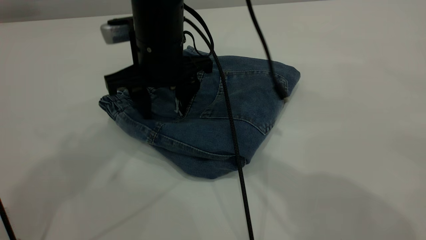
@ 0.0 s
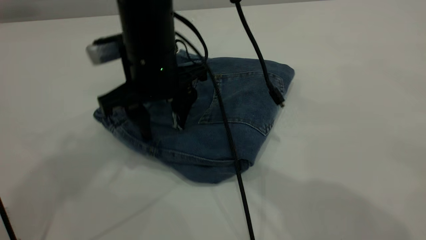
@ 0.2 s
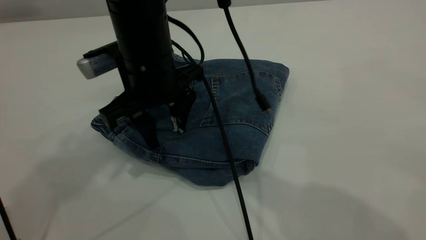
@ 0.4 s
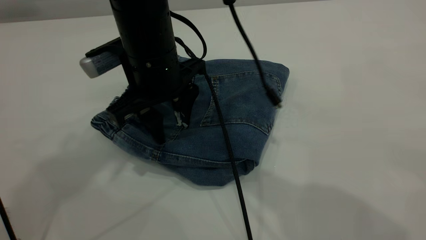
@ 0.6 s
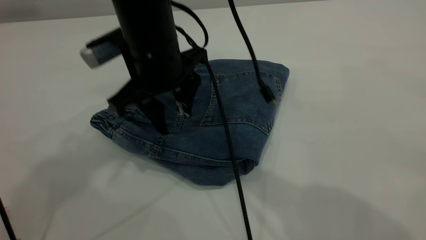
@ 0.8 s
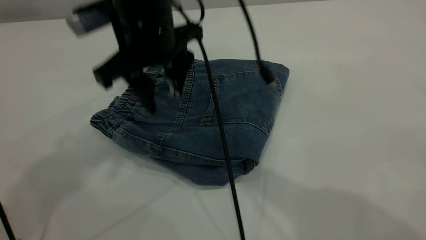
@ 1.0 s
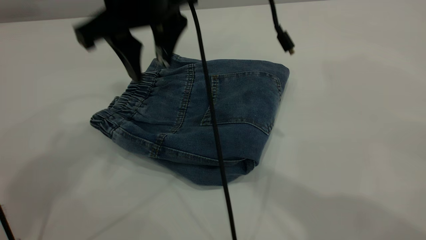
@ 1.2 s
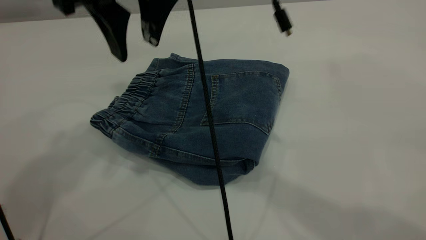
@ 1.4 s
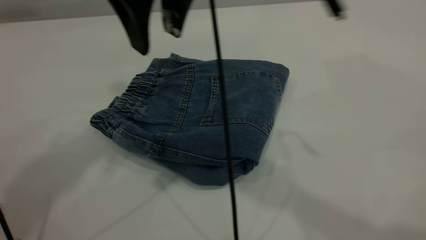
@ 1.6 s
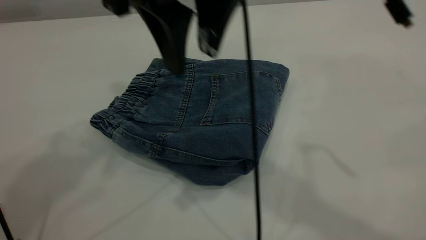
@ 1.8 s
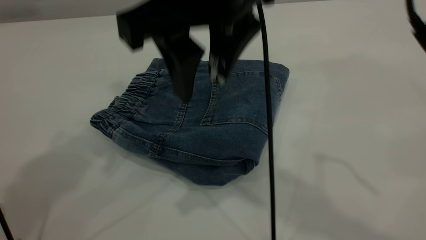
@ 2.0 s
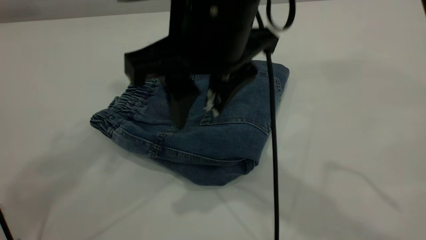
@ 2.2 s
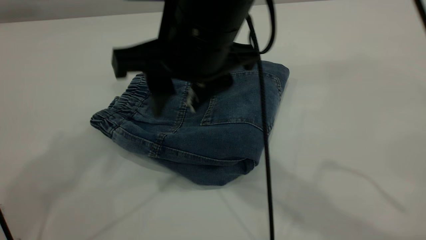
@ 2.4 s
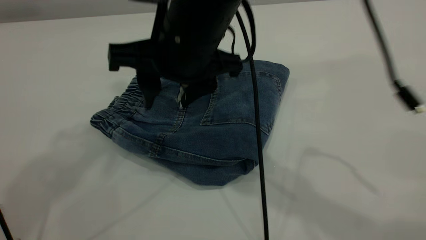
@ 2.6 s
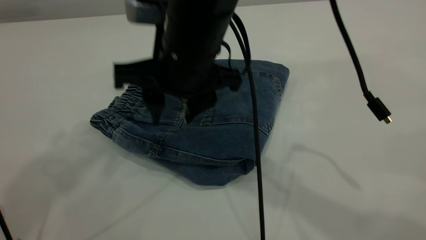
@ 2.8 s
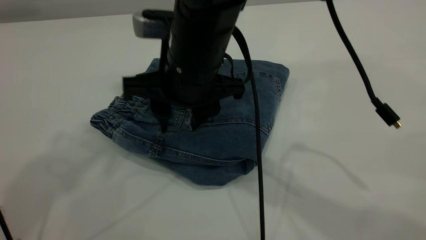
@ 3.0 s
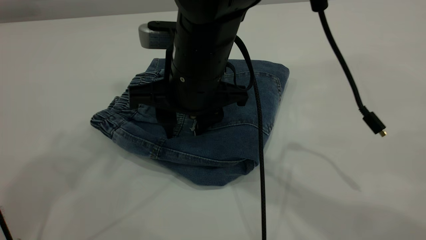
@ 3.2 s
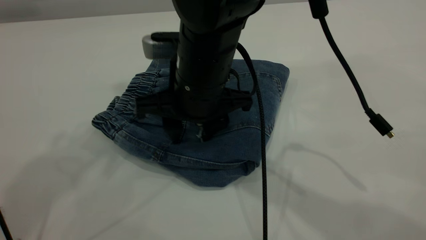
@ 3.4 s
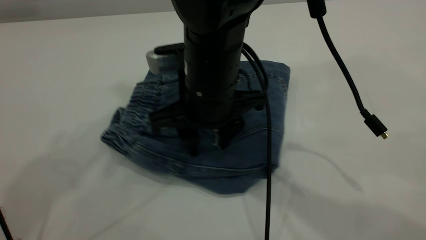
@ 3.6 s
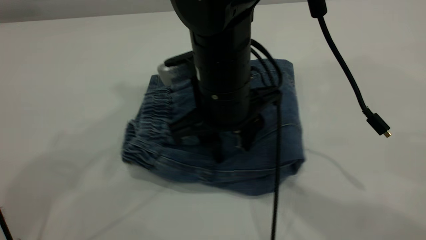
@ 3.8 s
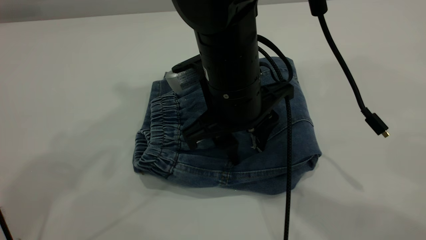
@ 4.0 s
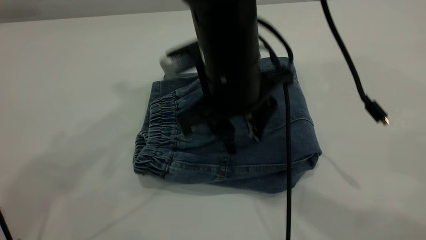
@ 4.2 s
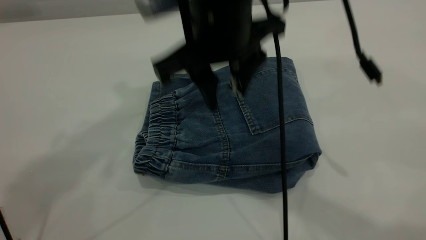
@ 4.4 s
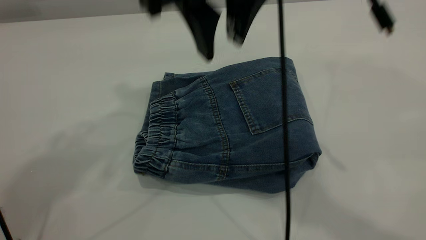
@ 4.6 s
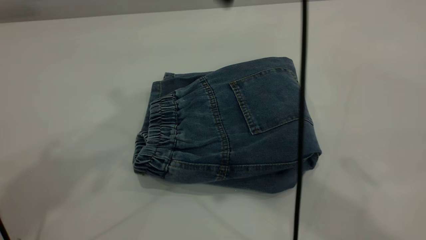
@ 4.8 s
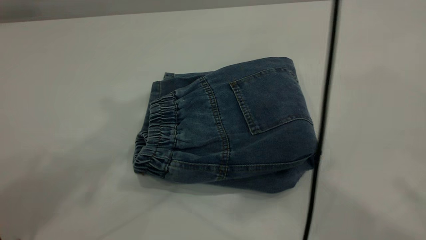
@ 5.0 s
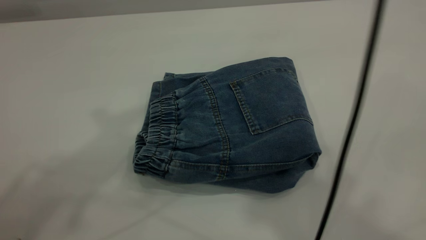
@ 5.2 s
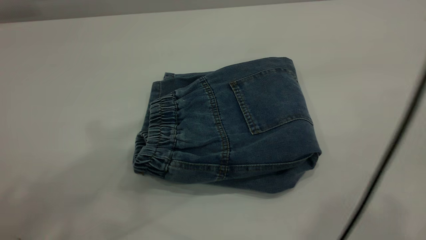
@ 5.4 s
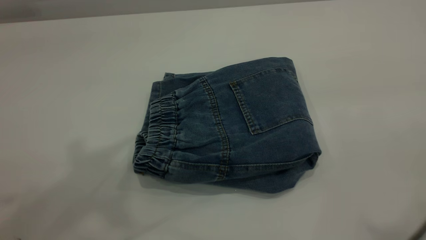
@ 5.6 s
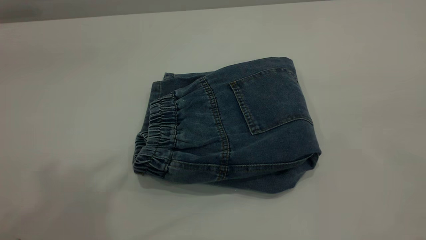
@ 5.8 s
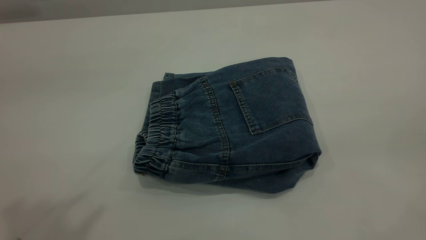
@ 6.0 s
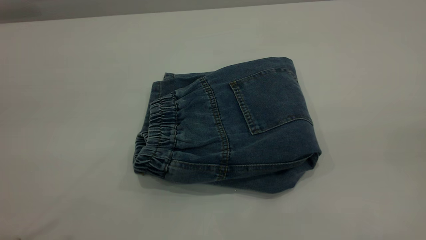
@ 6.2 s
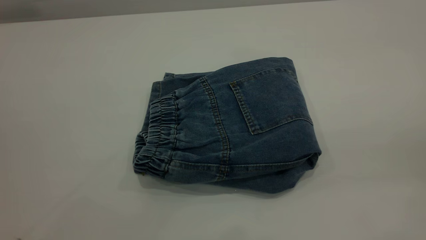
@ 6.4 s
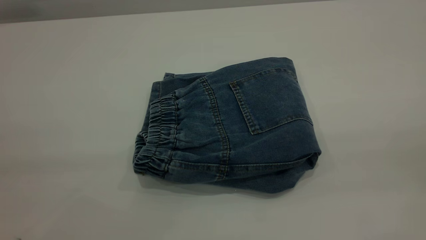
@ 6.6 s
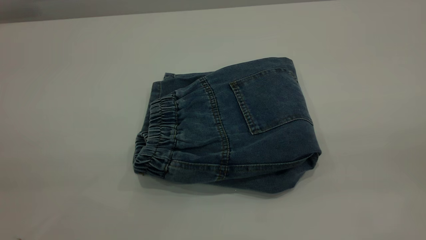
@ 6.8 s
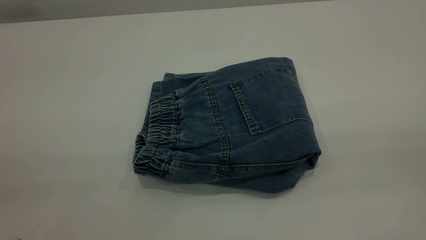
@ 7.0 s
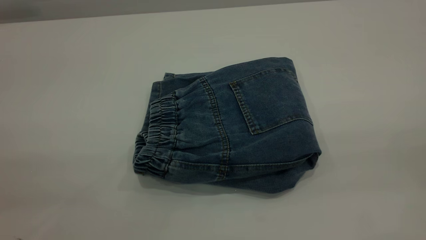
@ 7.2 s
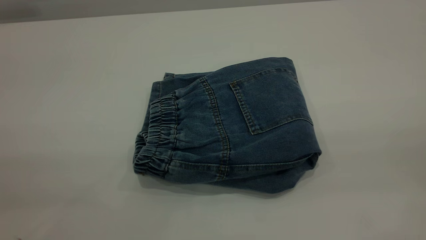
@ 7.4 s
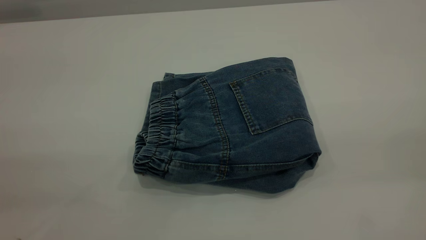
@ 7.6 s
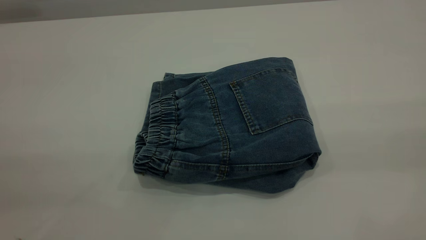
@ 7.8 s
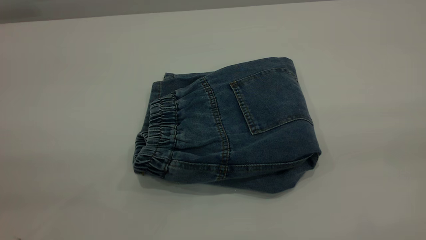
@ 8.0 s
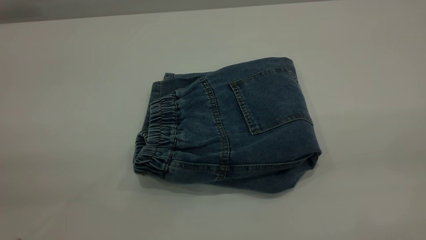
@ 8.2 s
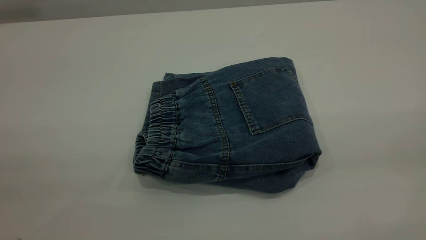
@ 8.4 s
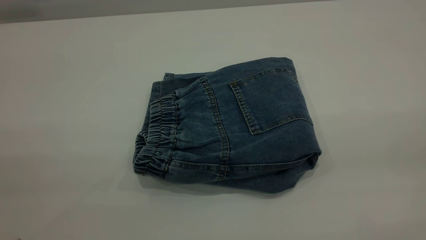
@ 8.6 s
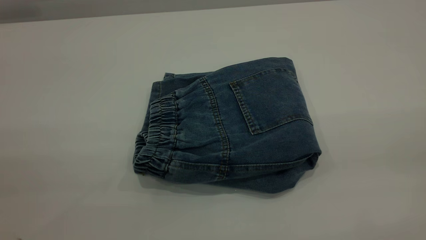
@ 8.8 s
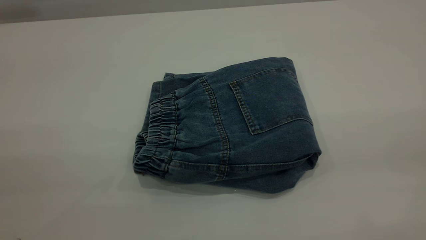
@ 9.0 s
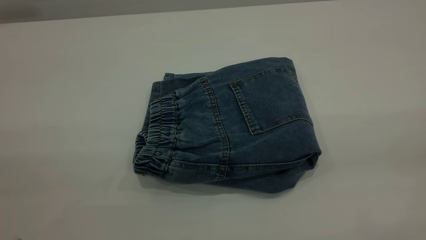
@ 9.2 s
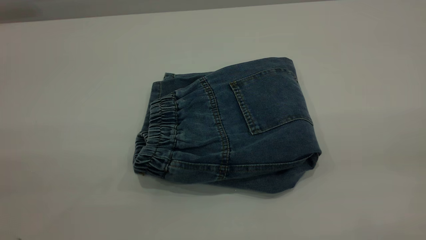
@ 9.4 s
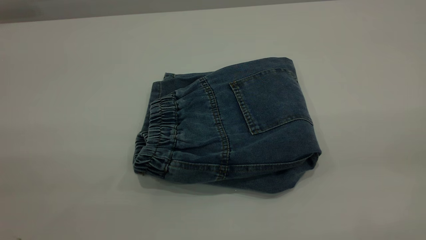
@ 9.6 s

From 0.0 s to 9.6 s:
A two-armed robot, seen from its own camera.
From 0.0 s to 1.6 s: The right gripper heads upward and backward, covering approximately 15 cm.
From 1.6 s to 3.2 s: The right gripper is displaced downward by approximately 15 cm.
From 3.2 s to 4.8 s: The right gripper moves upward, roughly 25 cm.
From 4.8 s to 6.4 s: The right gripper travels backward and to the right by some 35 cm.

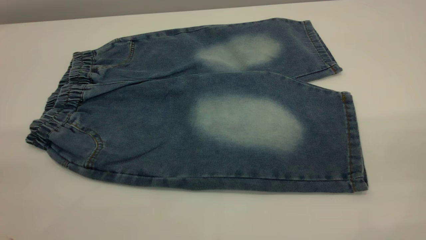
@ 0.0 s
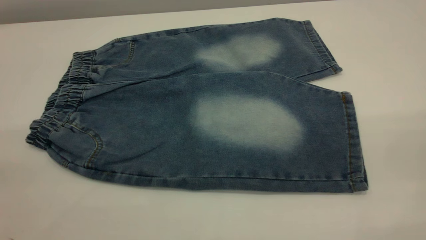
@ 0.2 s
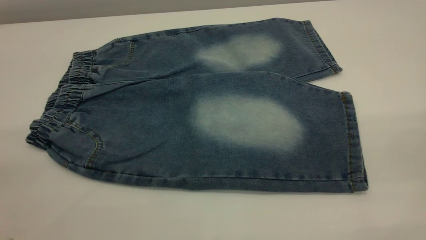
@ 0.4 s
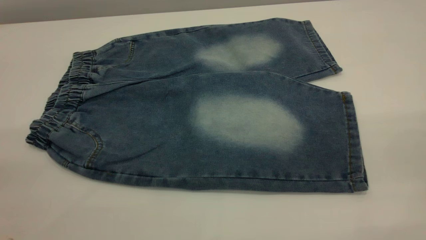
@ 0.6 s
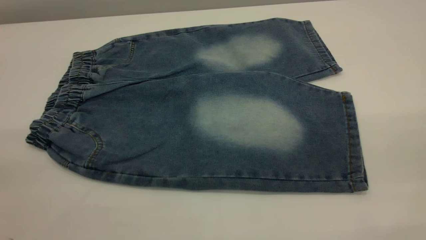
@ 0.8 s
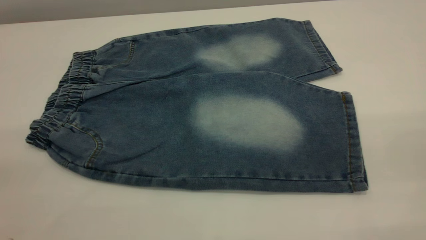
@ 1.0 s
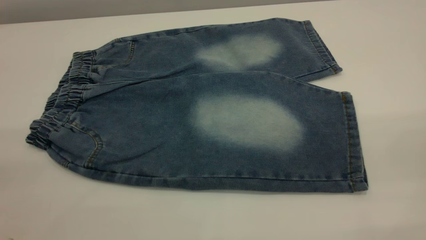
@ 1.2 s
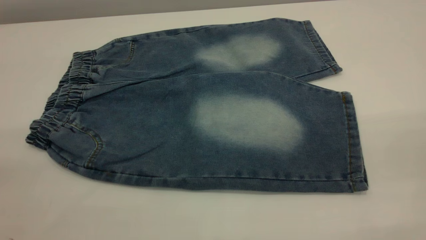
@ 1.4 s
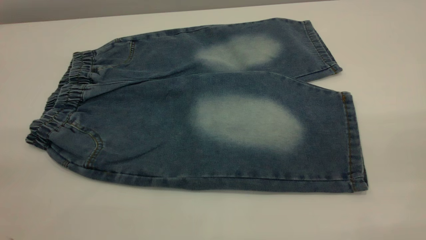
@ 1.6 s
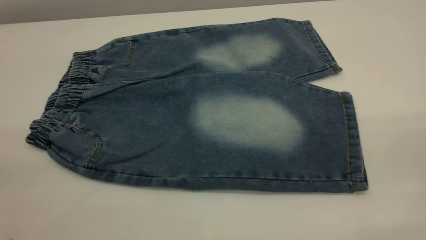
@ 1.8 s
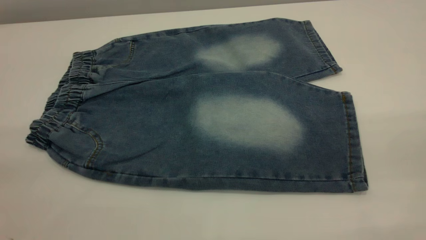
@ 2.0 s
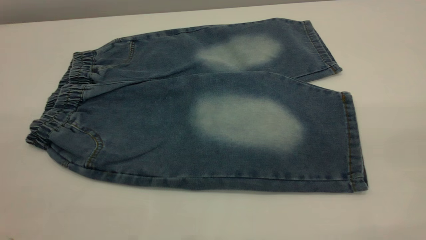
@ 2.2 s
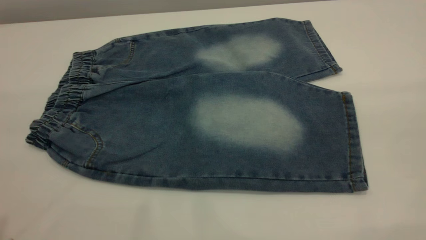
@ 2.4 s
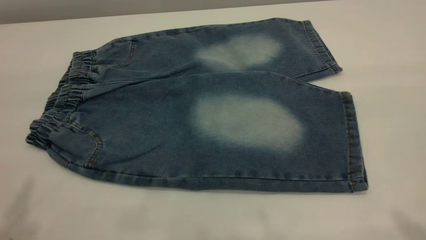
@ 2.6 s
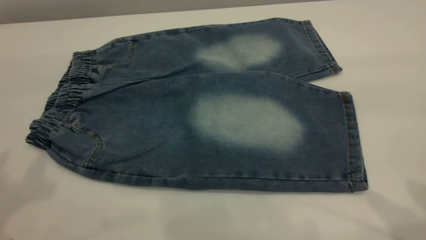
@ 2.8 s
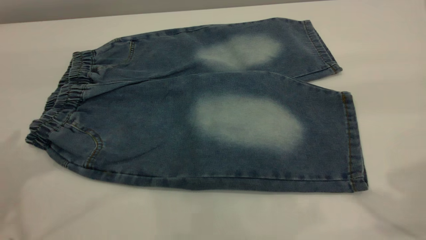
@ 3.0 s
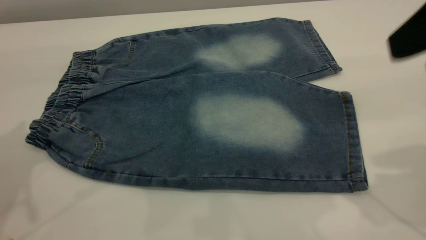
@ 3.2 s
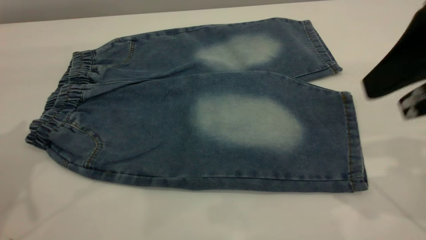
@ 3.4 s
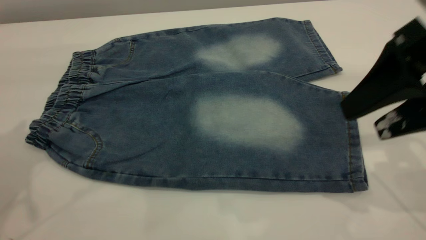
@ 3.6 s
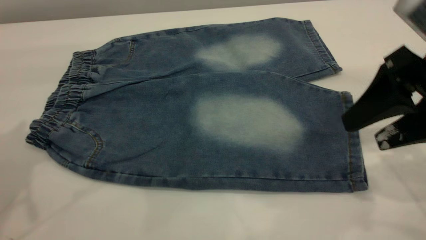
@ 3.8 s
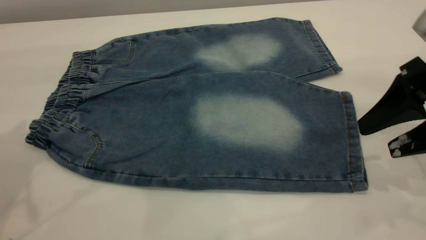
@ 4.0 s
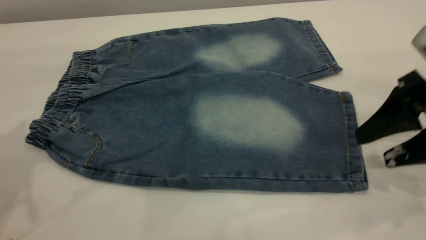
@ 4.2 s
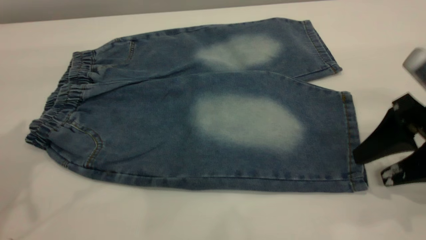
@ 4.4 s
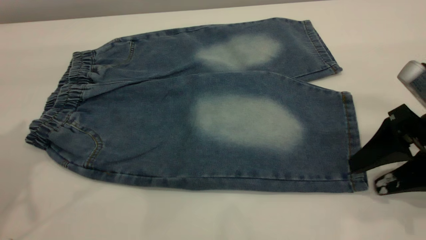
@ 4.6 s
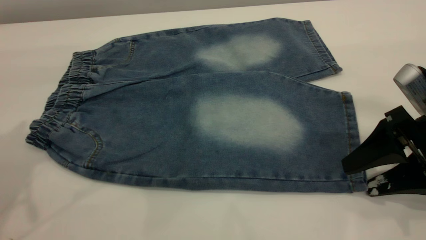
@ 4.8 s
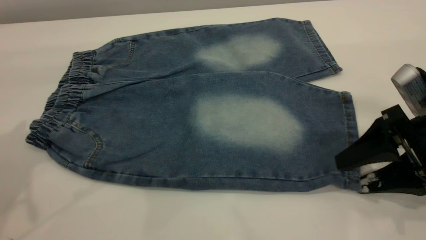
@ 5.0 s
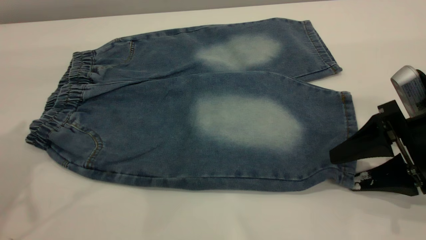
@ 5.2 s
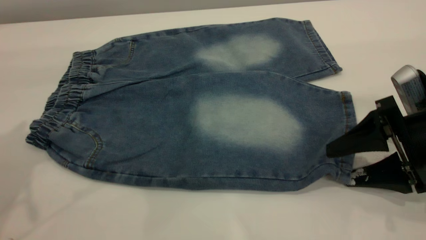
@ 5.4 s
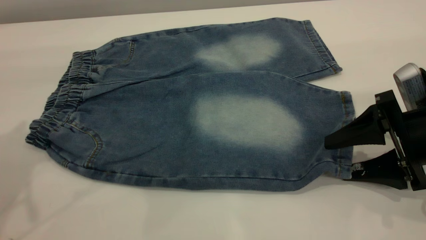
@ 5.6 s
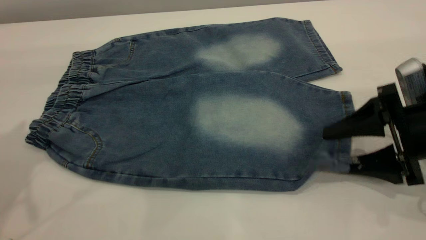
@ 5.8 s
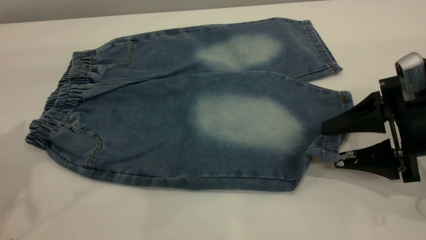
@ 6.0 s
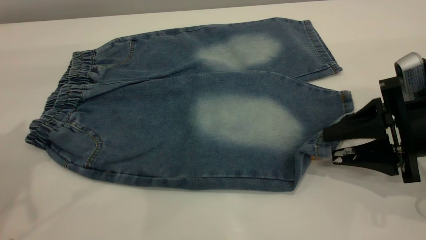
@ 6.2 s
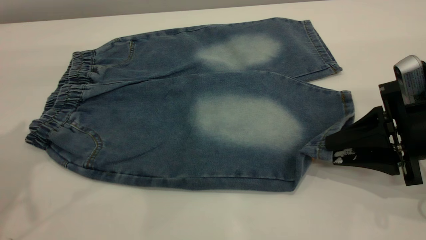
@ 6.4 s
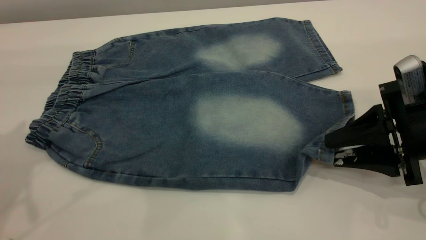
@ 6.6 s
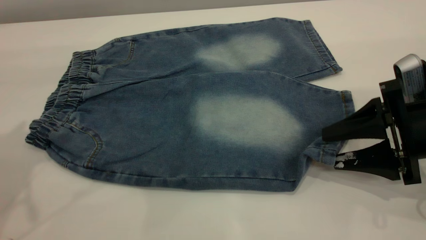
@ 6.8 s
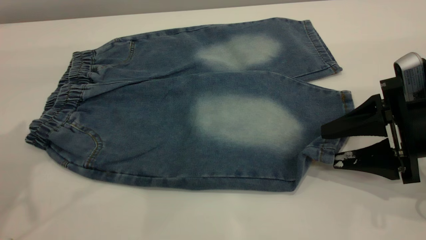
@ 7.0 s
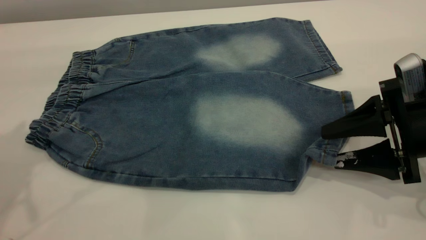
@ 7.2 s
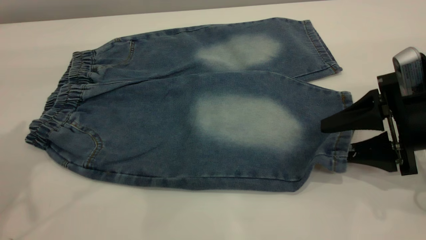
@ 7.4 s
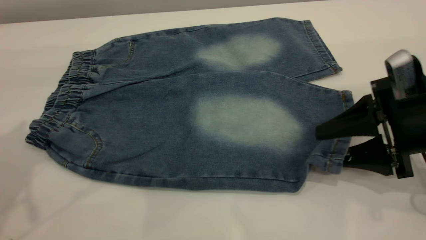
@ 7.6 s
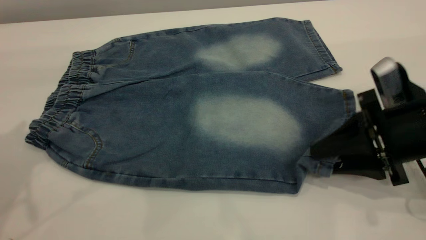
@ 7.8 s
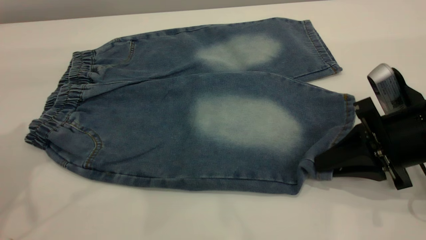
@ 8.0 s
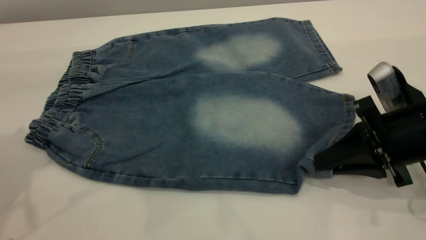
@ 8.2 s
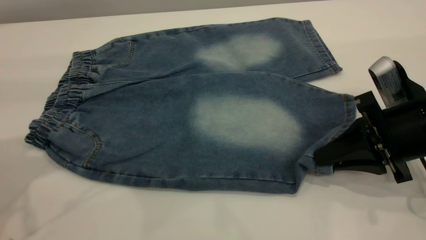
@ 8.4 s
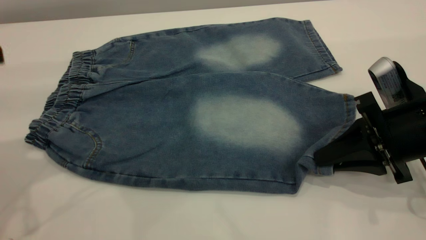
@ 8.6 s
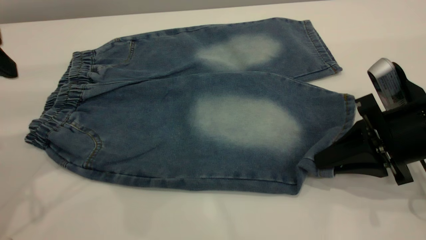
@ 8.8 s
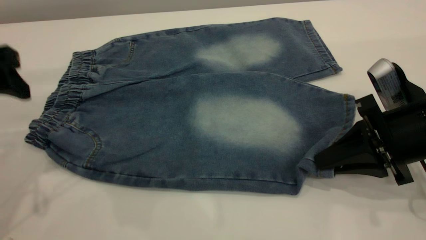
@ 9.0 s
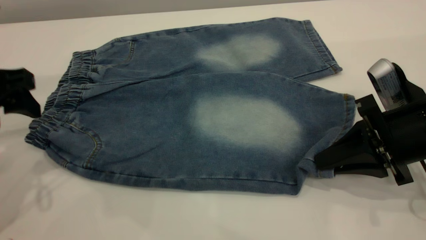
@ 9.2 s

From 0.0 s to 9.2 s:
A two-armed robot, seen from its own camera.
From 0.0 s to 1.6 s: Neither gripper changes place.
From 3.0 s to 4.6 s: The right gripper moves downward, some 20 cm.
From 4.6 s to 6.2 s: The right gripper closes.
From 6.2 s to 7.6 s: Both grippers stay about where they are.
From 7.6 s to 9.2 s: The right gripper closes up. Meanwhile the left gripper heads downward, covering roughly 15 cm.
